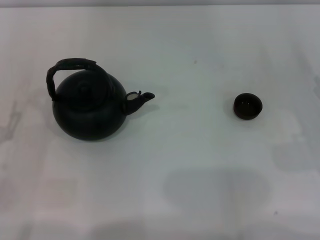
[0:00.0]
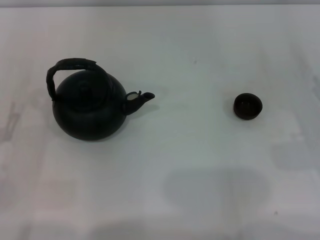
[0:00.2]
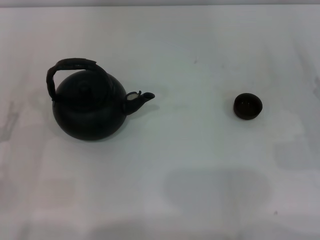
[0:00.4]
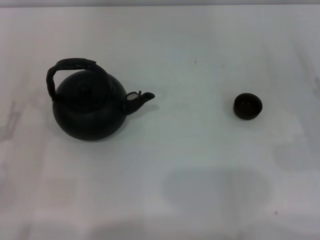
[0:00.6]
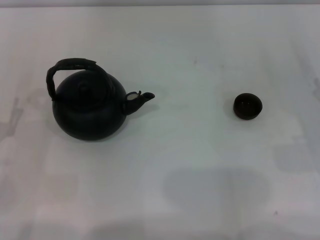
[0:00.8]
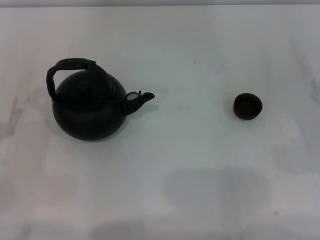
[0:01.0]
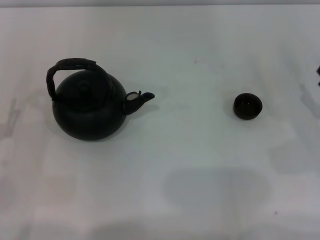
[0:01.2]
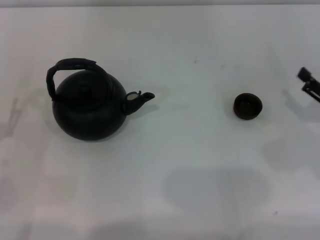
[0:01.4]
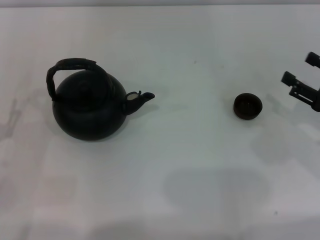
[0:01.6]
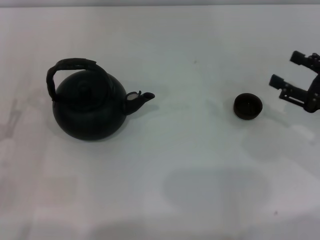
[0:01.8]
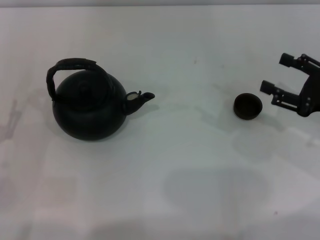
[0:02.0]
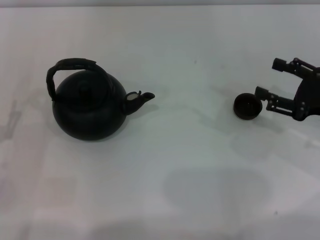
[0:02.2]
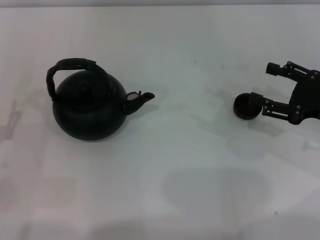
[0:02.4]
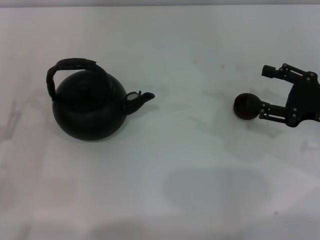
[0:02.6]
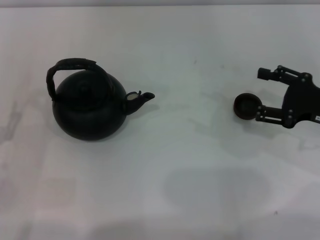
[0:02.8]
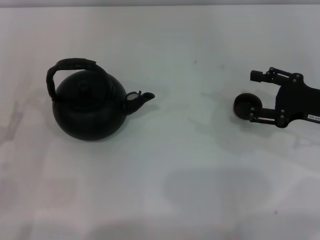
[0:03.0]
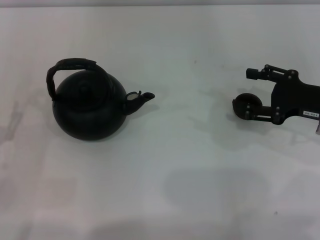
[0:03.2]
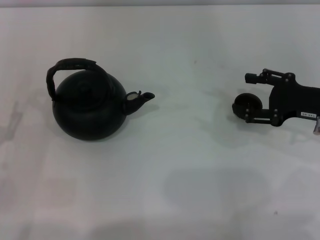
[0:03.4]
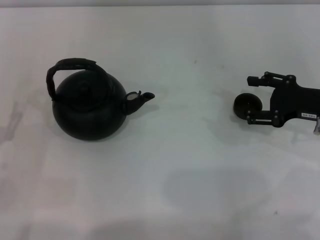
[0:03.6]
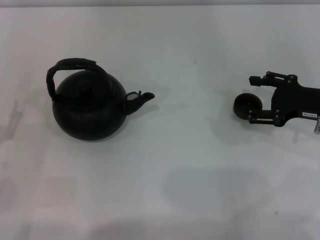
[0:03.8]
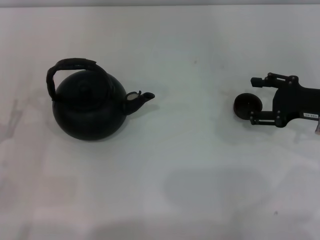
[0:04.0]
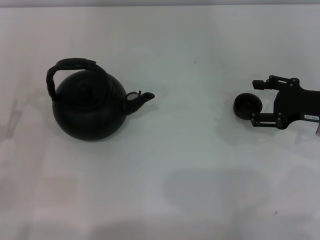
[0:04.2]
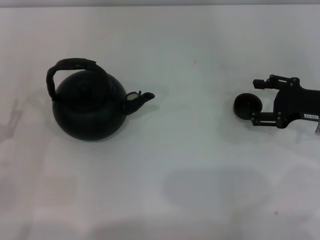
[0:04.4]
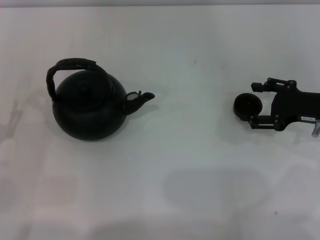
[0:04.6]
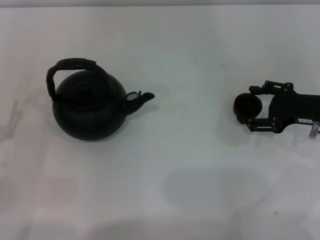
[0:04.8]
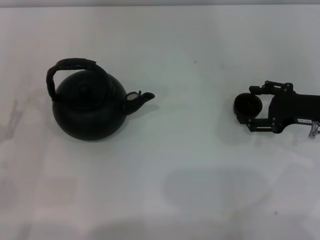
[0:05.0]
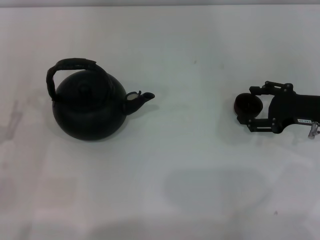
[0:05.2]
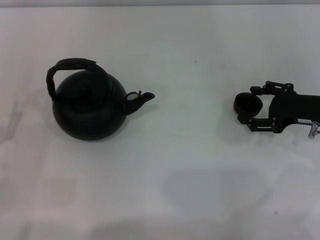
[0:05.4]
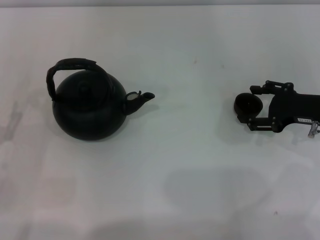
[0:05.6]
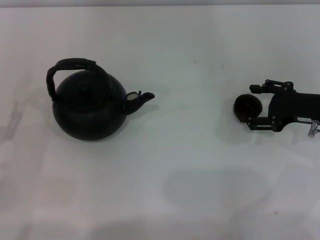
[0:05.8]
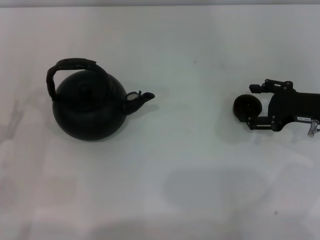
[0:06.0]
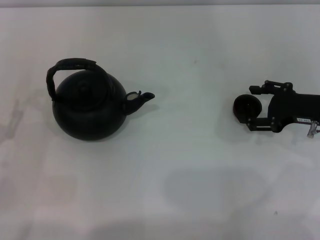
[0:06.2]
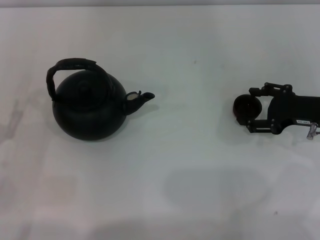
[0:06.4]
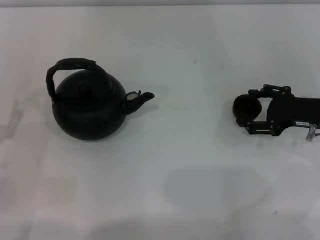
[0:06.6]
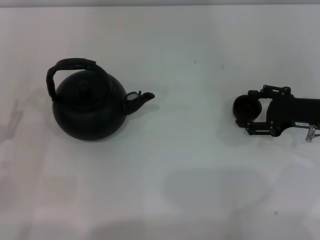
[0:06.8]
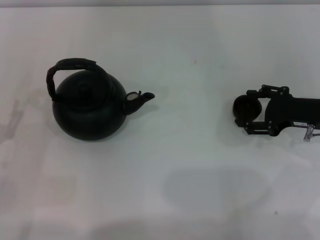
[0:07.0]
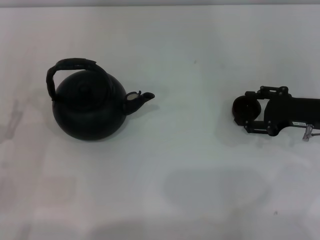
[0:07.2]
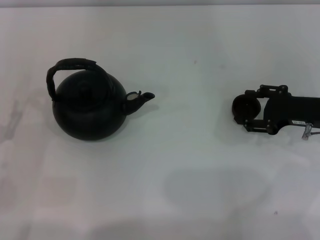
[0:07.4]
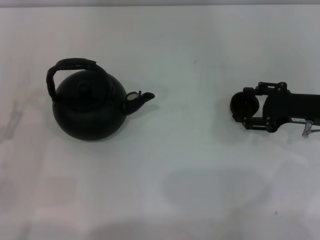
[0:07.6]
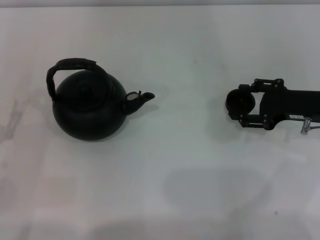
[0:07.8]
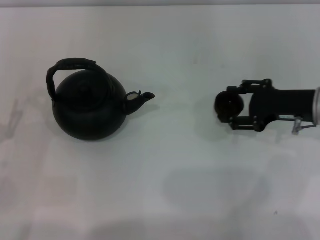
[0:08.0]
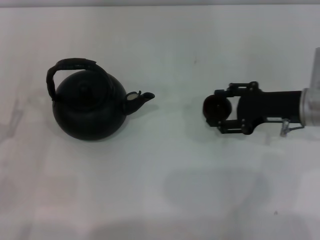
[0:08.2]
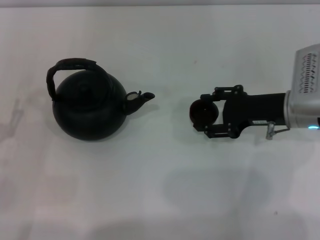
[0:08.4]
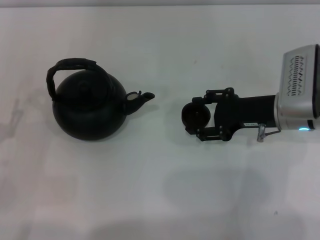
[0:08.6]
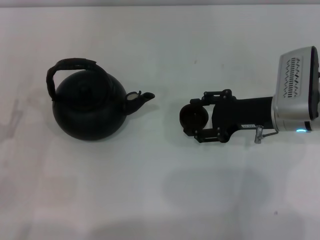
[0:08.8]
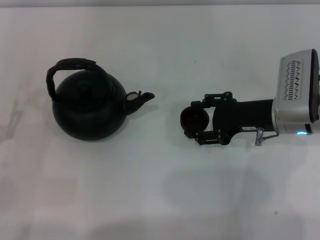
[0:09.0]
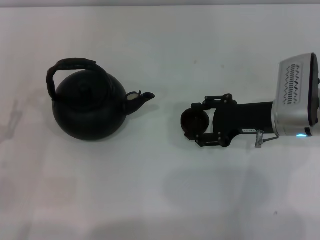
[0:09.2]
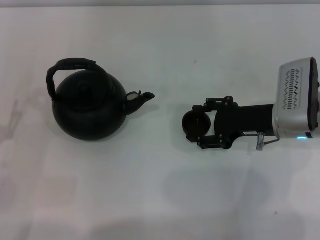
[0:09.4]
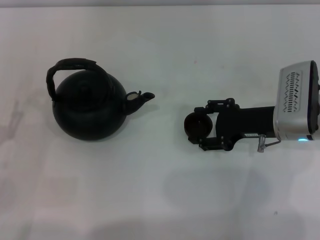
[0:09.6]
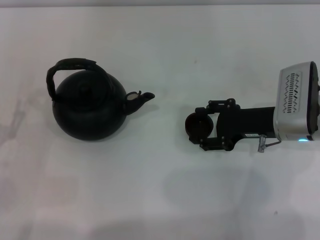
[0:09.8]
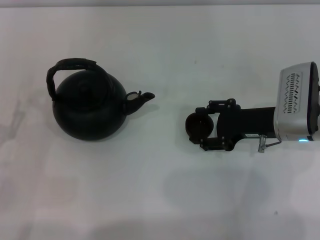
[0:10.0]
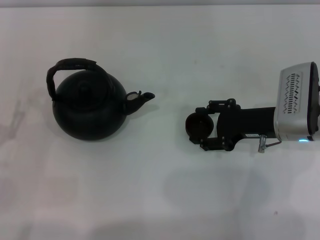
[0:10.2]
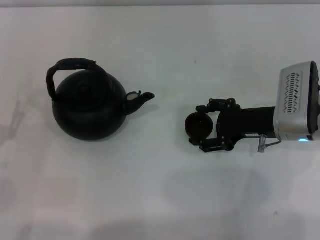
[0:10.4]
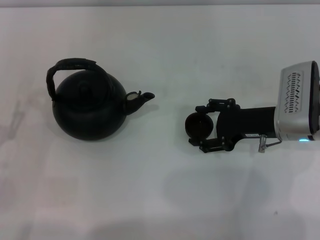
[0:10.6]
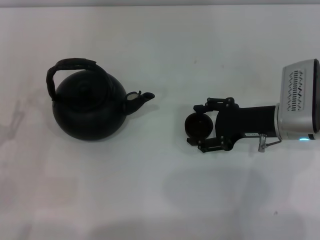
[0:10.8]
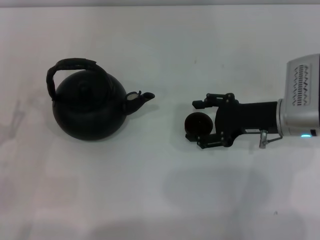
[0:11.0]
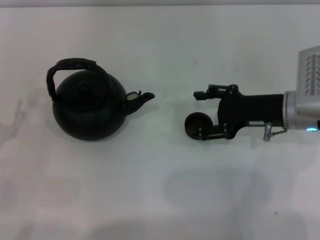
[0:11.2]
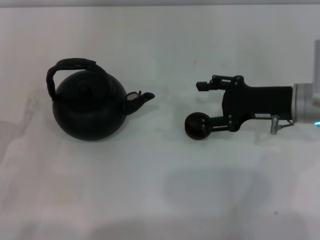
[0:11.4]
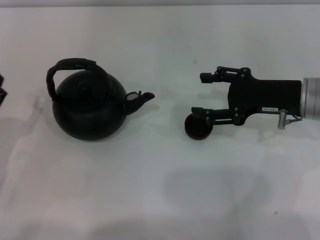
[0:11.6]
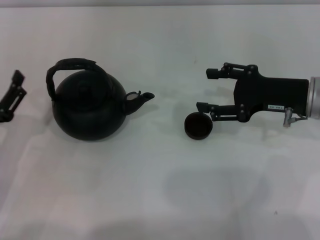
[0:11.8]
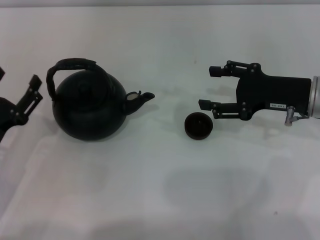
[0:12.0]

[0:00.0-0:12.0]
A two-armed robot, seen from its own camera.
Task of the whole recording: Grasp the handle of the teapot with one hand and pour tea into the teacup.
Step, 0:00.0 to 0:07.4: Pick up the teacup with the right gripper.
Step, 0:07.8 to 0:11.8: Place the teacup in the center of view with the right gripper.
0:01.6 to 0:03.0: The right gripper ends up approximately 5 cm from where it was.
0:03.0 to 0:06.0: The grippers move only a little.
0:06.0 to 0:07.6: Both grippers stay about where they are.
0:07.6 to 0:09.0: The right gripper heads to the left, covering about 10 cm.
0:09.0 to 0:10.4: The grippers move only a little.
0:10.4 to 0:12.0: The right gripper ends up some 5 cm from where it was.

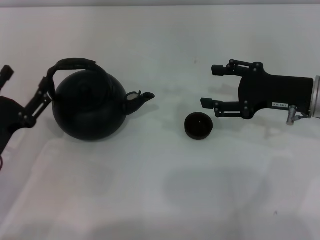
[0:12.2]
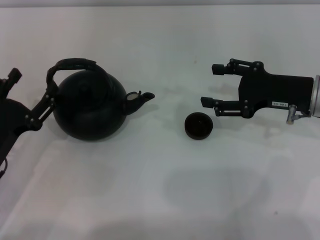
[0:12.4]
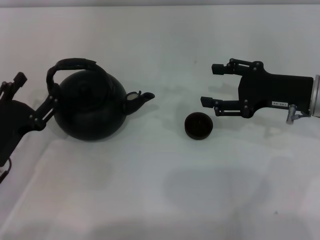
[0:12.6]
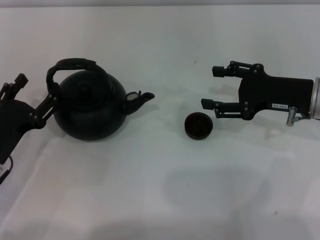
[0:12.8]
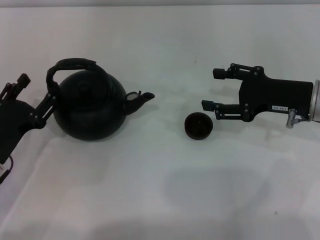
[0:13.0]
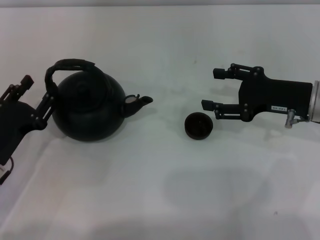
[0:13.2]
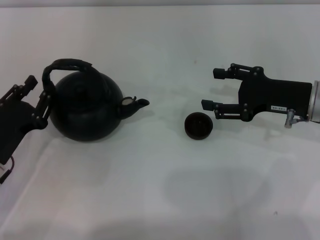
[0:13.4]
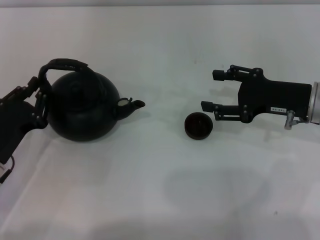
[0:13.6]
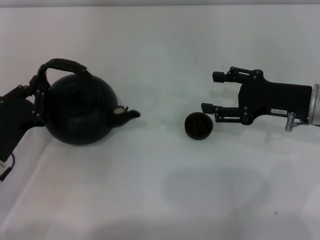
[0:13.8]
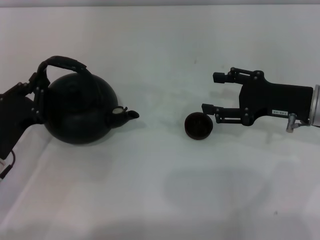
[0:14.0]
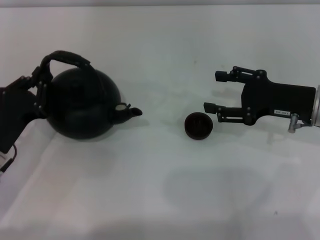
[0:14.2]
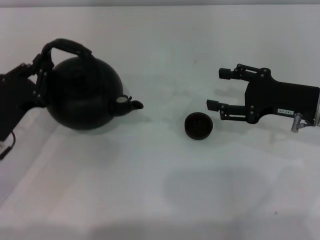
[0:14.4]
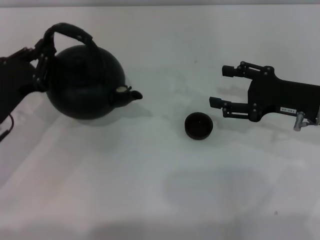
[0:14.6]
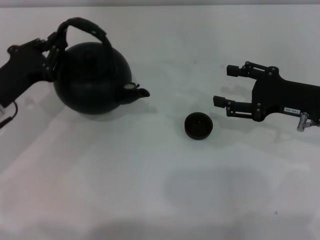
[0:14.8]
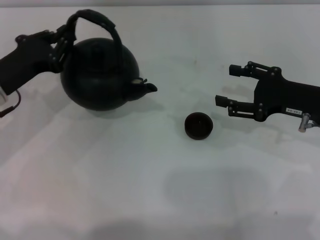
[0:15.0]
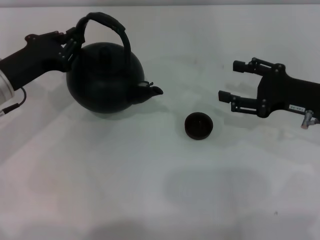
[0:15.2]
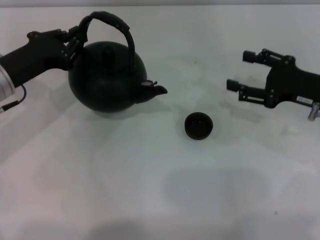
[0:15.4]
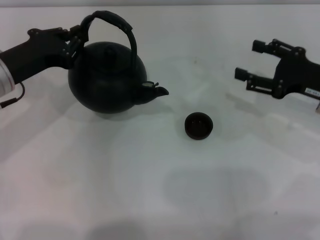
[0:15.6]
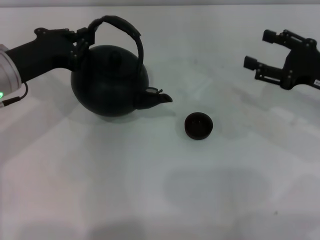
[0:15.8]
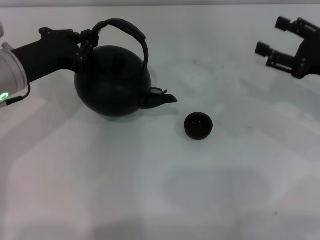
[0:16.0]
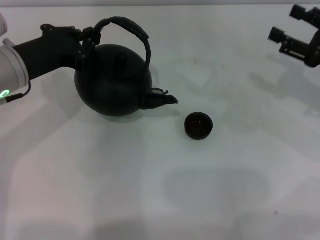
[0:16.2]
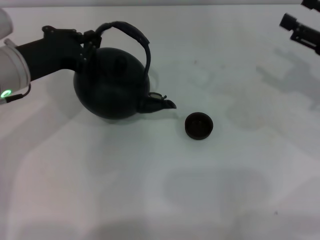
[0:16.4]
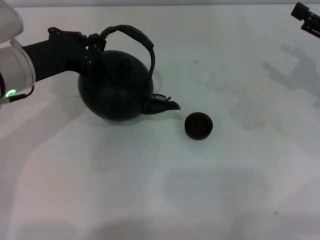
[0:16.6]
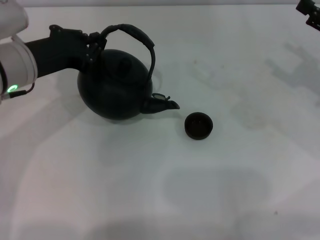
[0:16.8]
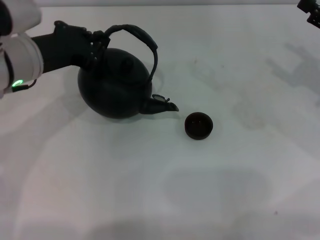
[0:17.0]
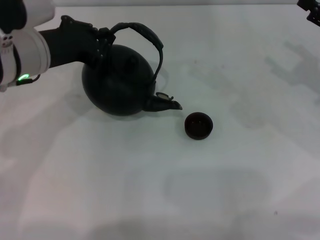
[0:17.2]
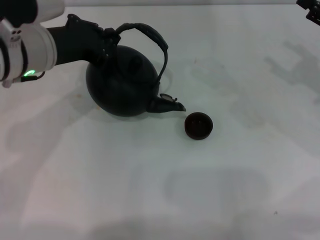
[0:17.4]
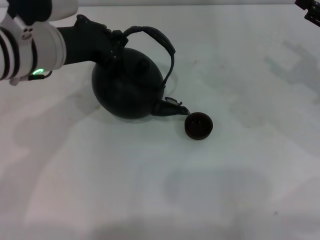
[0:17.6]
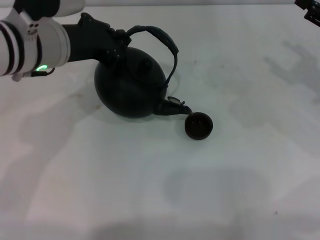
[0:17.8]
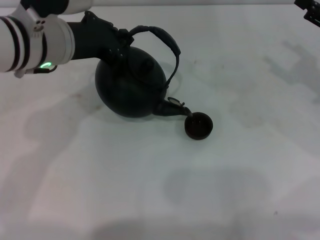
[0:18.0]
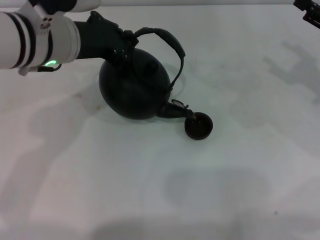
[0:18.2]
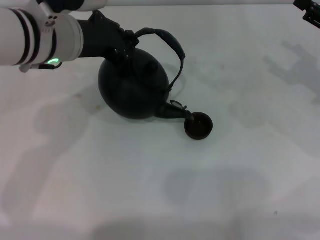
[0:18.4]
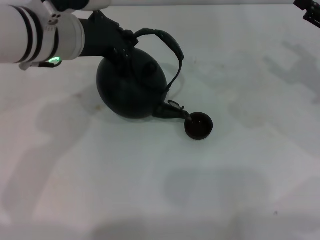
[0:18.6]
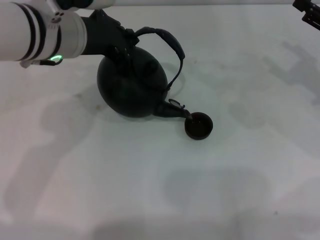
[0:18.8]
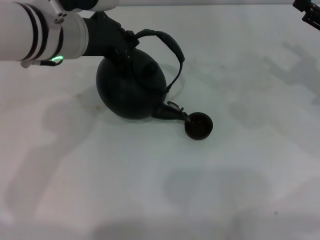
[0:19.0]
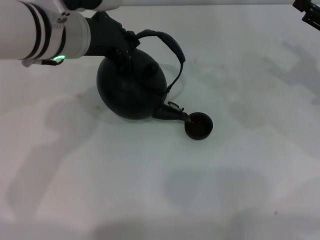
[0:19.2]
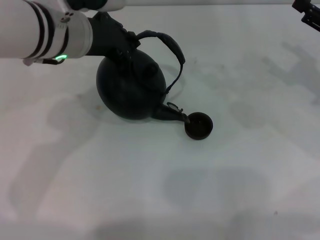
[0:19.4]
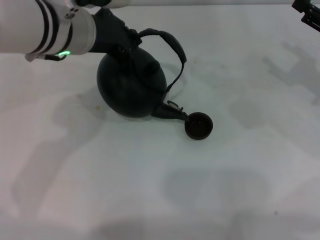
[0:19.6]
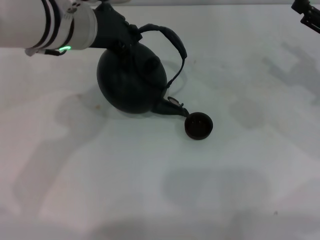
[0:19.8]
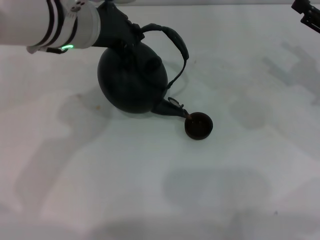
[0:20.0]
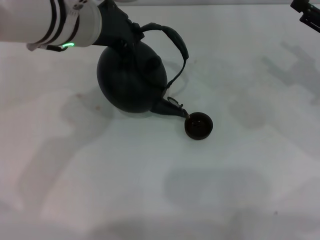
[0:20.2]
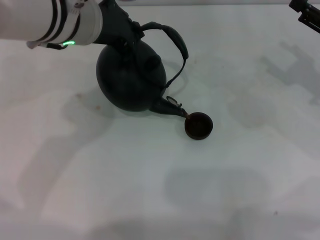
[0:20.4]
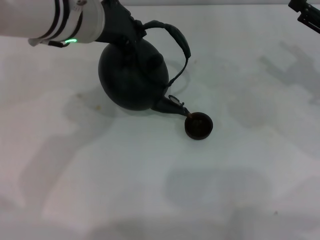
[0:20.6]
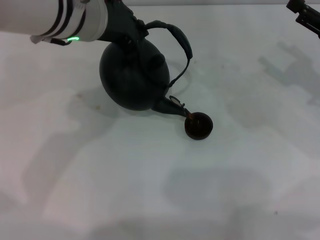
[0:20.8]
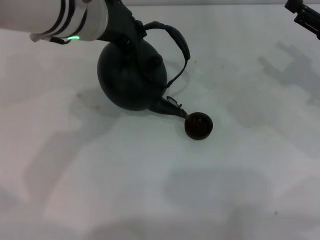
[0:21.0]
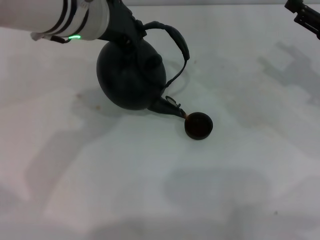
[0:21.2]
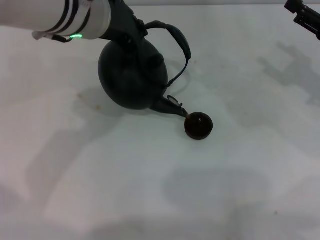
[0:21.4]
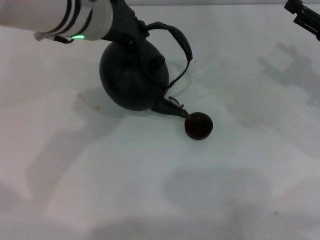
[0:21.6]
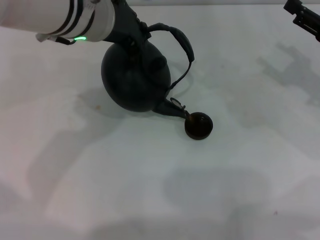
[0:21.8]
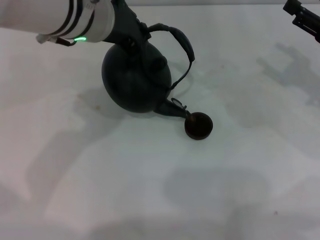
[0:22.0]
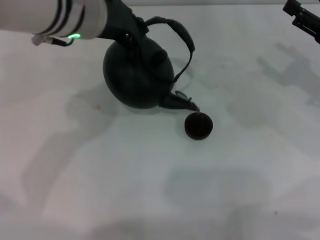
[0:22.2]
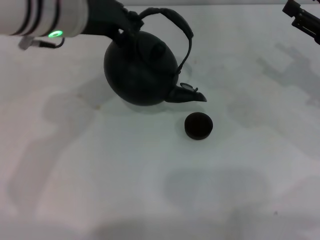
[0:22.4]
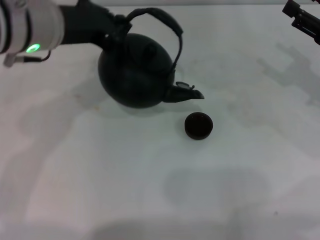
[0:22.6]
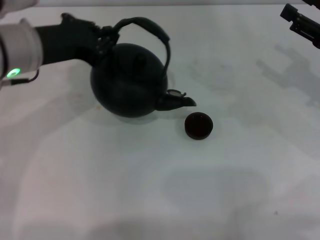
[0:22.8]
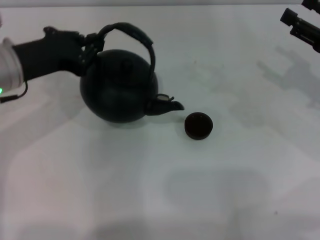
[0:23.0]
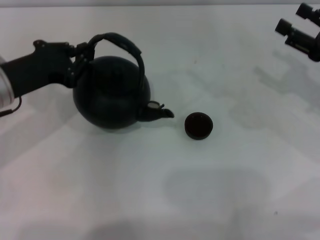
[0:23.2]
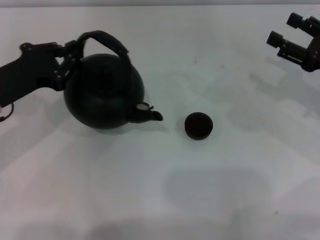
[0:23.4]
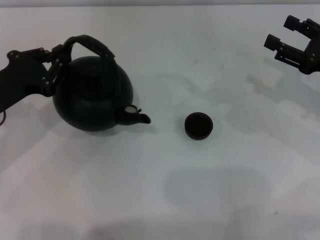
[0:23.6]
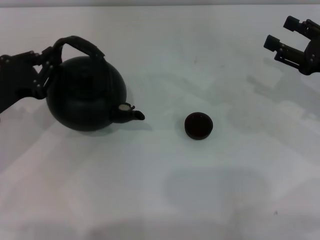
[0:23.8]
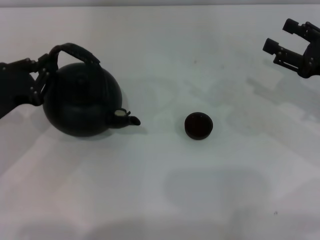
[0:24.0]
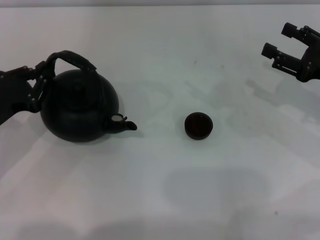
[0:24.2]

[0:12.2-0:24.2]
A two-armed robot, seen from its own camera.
Task of the whole recording: Grasp the handle of the teapot with one hand and pour tea into the teacup.
Step, 0:12.2 to 0:15.8: Pick up the teapot with the left gripper.
Step, 0:16.0 to 0:22.6: Pour tea into the teacup with the left gripper.
0:12.2 to 0:13.8: The left gripper closes.
0:13.8 to 0:15.2: The left gripper travels forward and upward by approximately 15 cm.
0:15.2 to 0:16.6: The left gripper is displaced upward by approximately 5 cm. The right gripper shifts some 5 cm to the right.
0:16.6 to 0:18.2: The left gripper travels to the right by approximately 5 cm.
0:18.2 to 0:21.2: The grippers move only a little.
0:21.2 to 0:22.6: The left gripper travels to the left by approximately 5 cm.
0:22.6 to 0:24.2: The left gripper moves downward, to the left and backward, roughly 20 cm.
